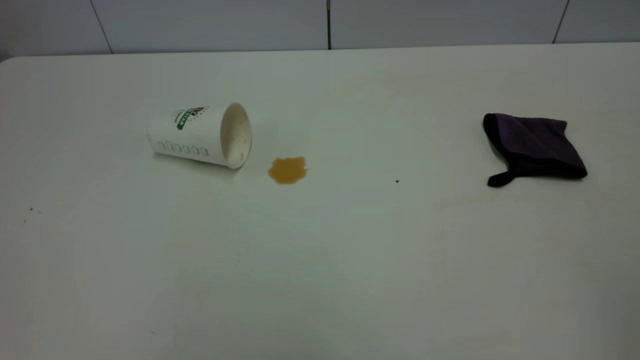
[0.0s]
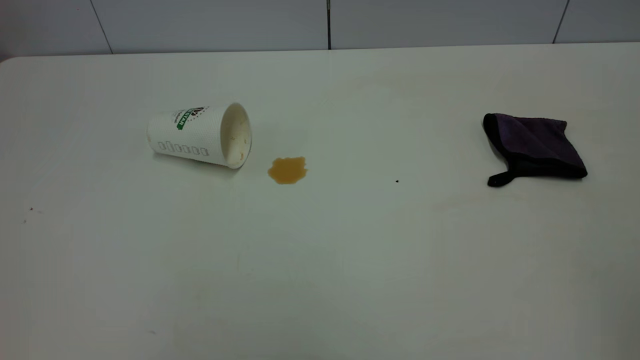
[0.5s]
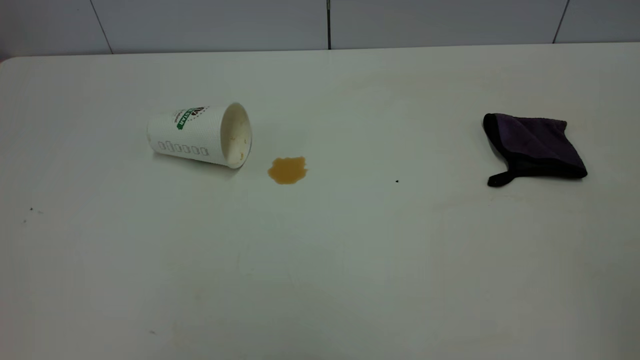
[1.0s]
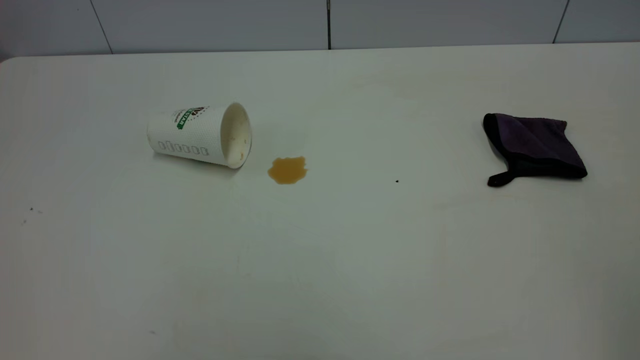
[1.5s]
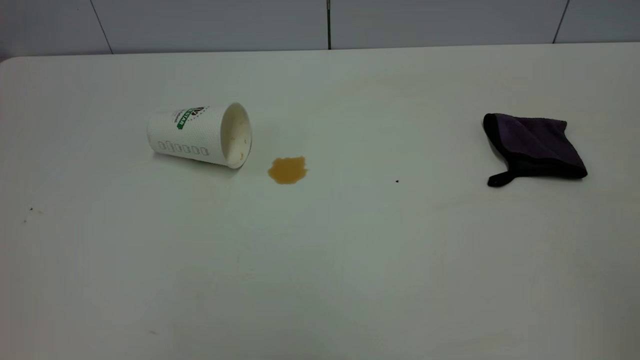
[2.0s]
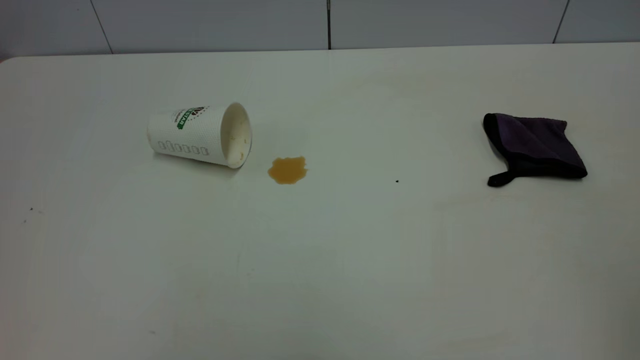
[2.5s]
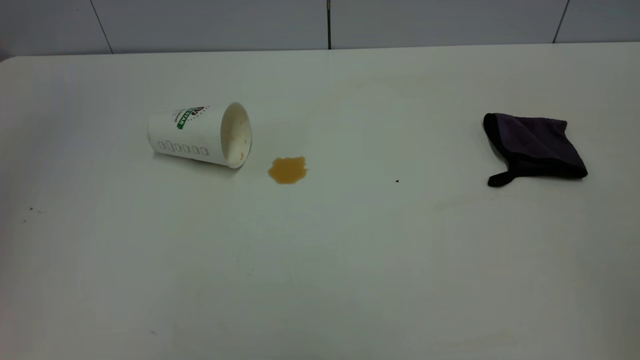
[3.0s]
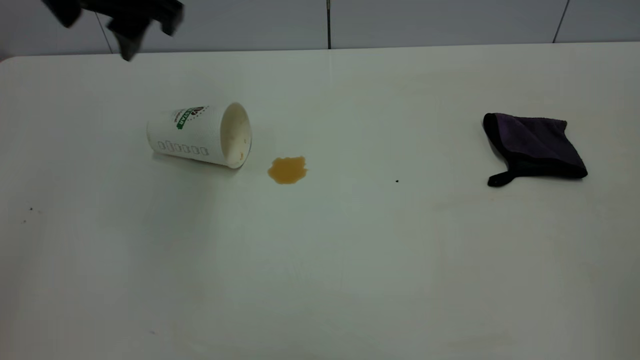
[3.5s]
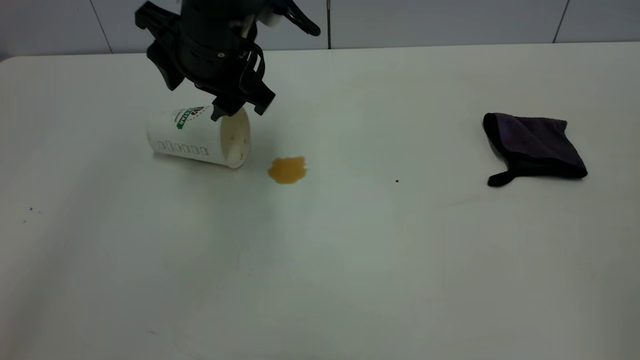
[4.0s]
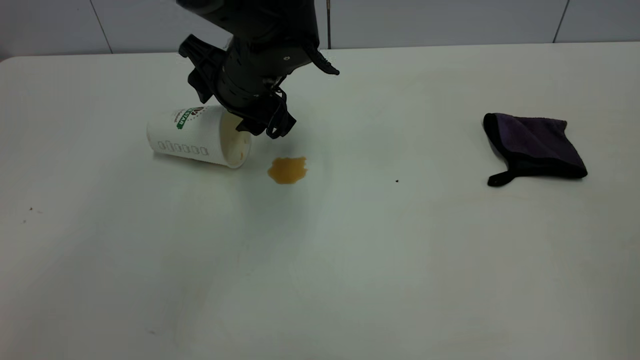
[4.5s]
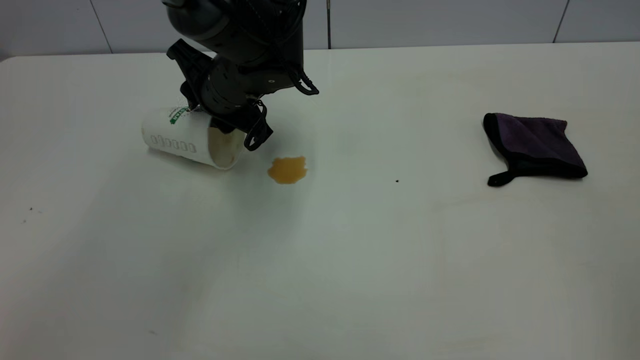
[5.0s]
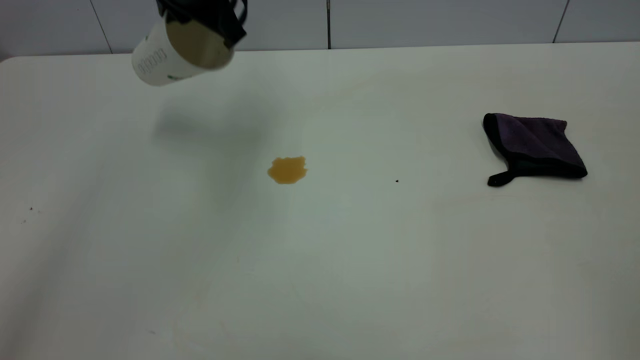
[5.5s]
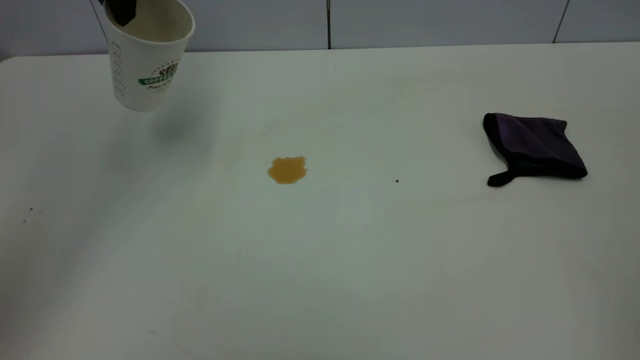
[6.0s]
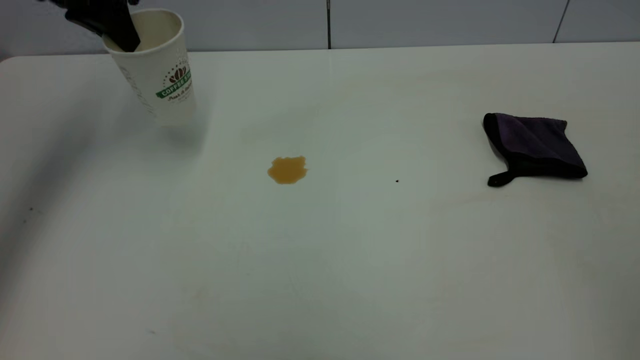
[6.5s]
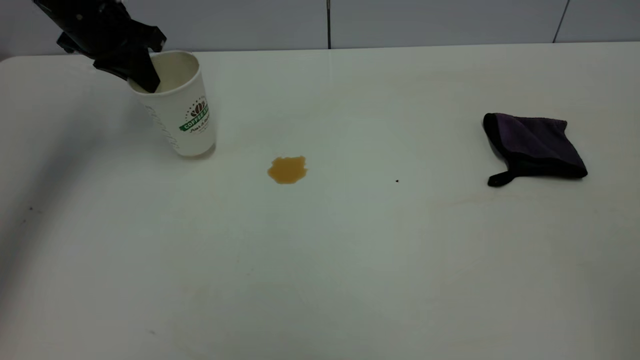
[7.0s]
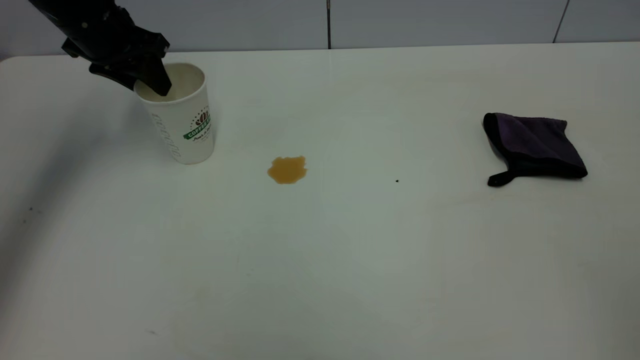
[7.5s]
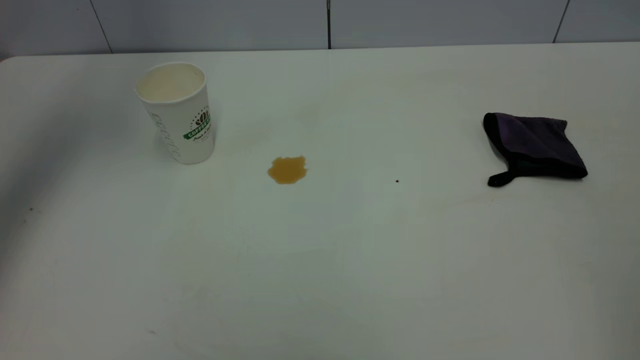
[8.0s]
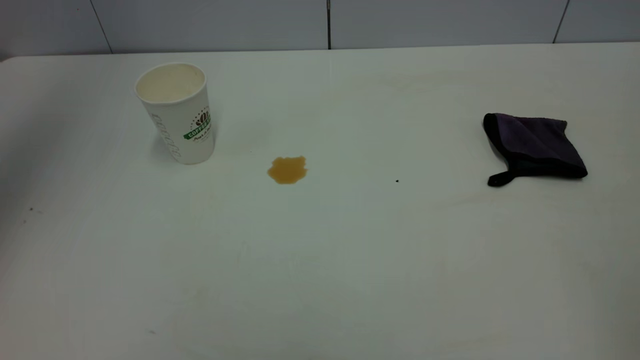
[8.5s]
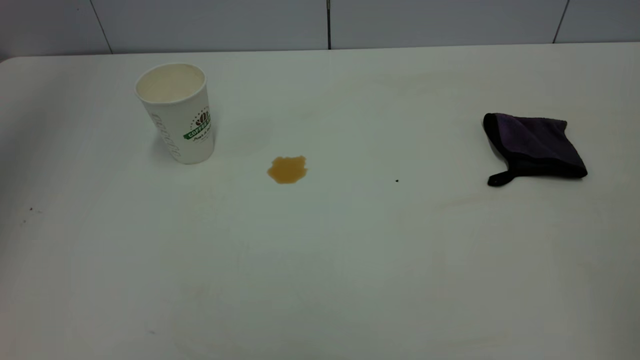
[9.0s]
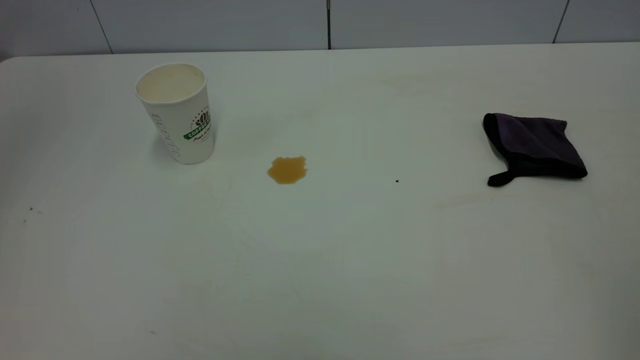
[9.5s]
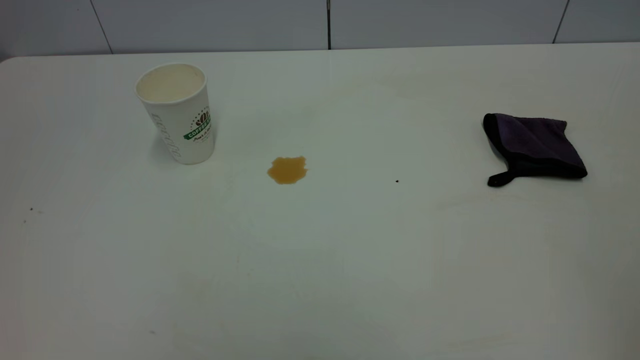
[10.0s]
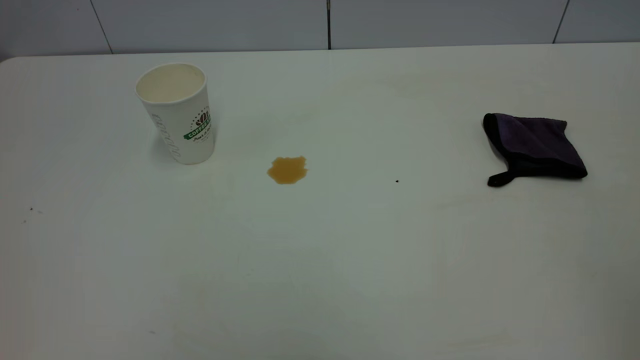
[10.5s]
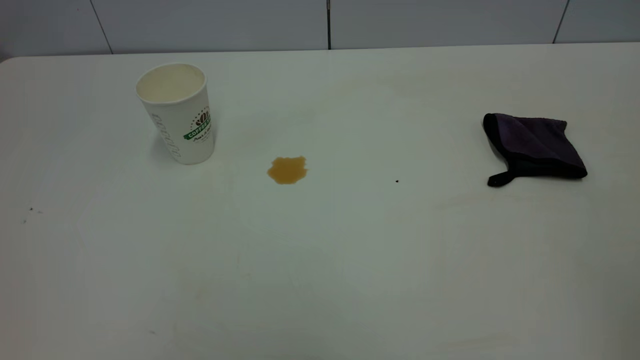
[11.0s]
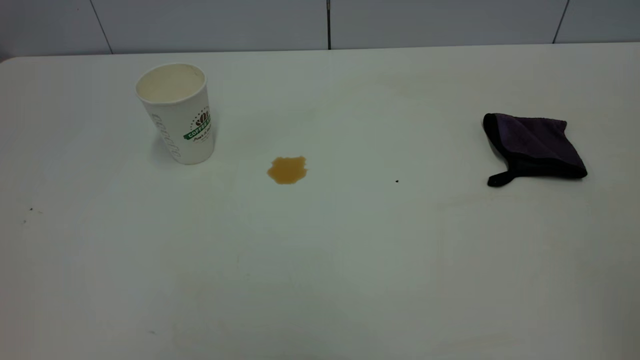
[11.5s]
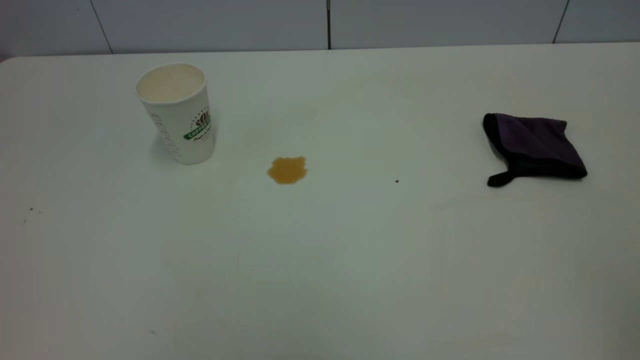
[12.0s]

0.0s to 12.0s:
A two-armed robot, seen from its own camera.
Task of the whole recording: the left gripper pick up the fallen cup and place it upright, the right gripper grasp the purple rag and wipe the tea stain on the table, the right gripper put the purple rag back in its original position.
Step, 0.0s to 7.5s: Stand the paper cup upright.
0.0s to 2.0s: Both grippers stay put.
2.0s to 4.0s: The left gripper moves forward, to the right and downward, approximately 50 cm.
4.0s to 6.0s: The left gripper shifts roughly 15 cm to the left, upward and forward, and closes up.
6.0s to 8.0s: The left gripper shifts some 10 cm upward and to the left, and opens its fingers.
8.0s to 10.0s: The left gripper travels backward by roughly 40 cm.

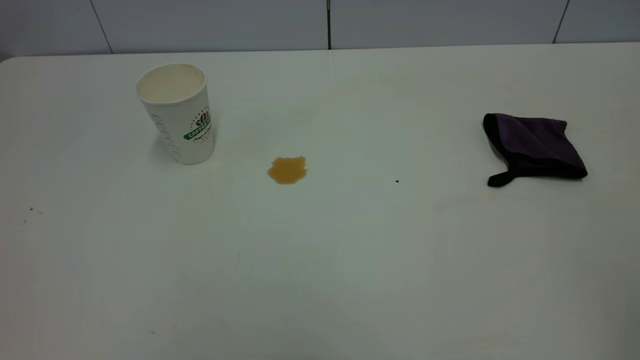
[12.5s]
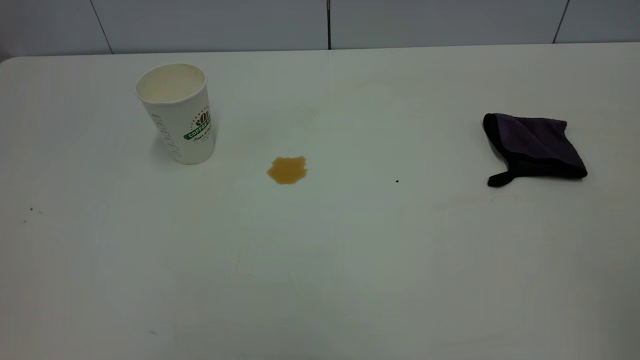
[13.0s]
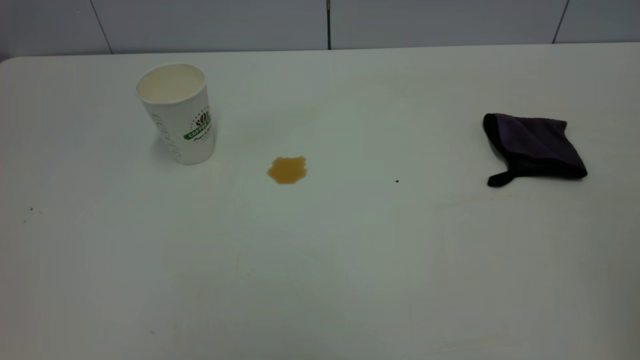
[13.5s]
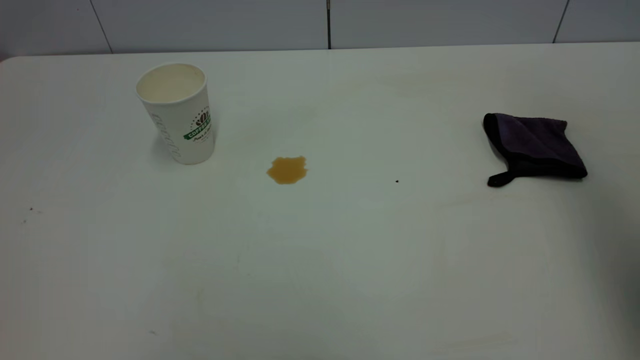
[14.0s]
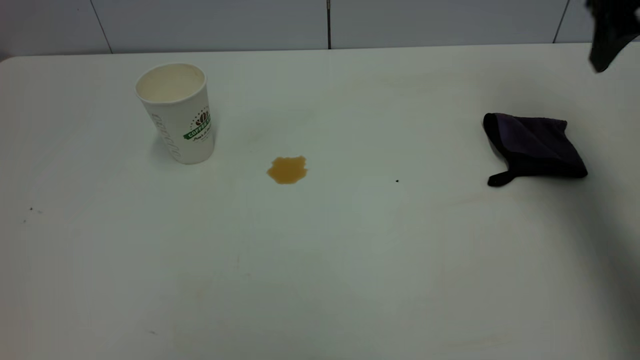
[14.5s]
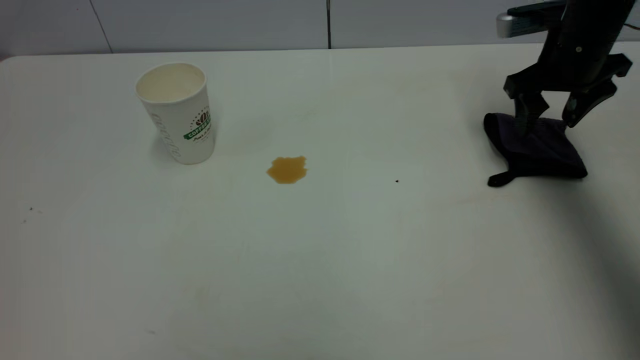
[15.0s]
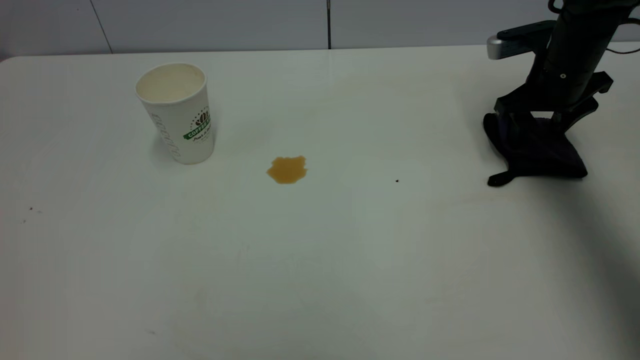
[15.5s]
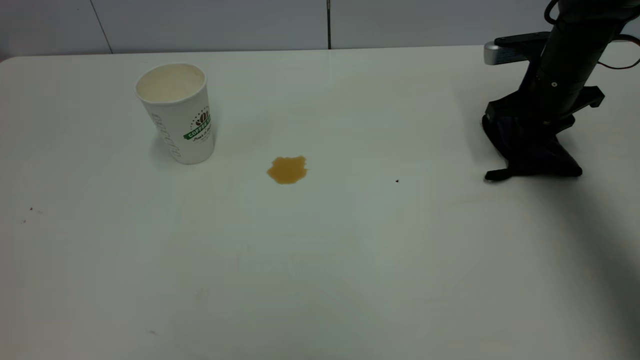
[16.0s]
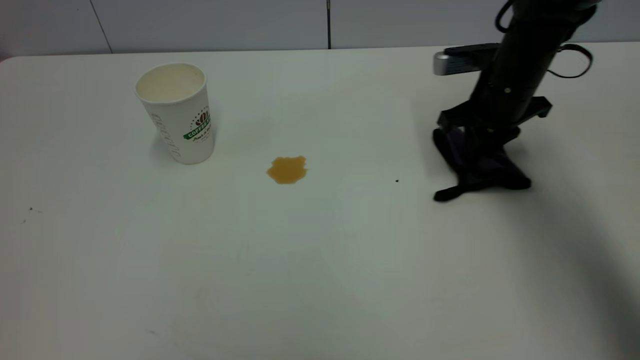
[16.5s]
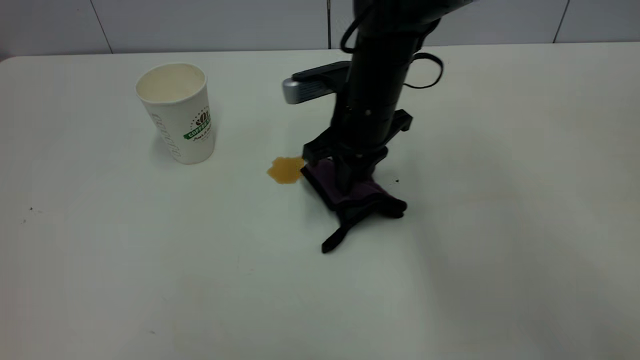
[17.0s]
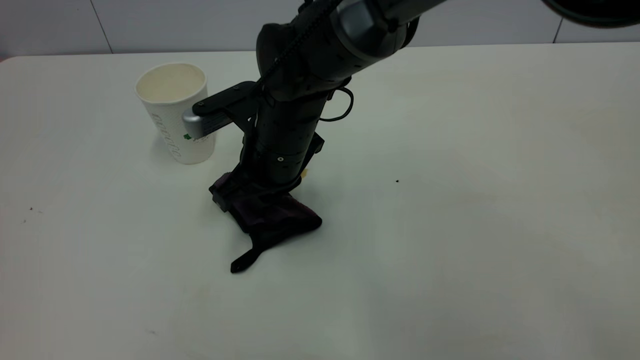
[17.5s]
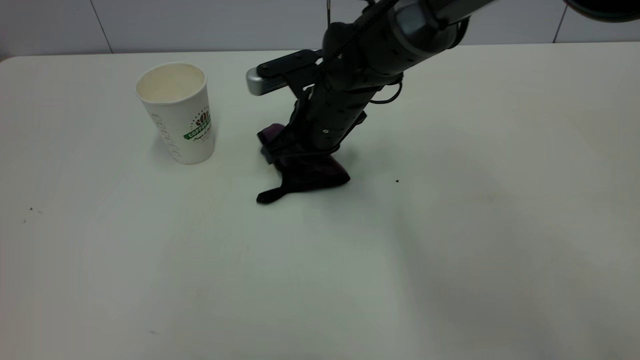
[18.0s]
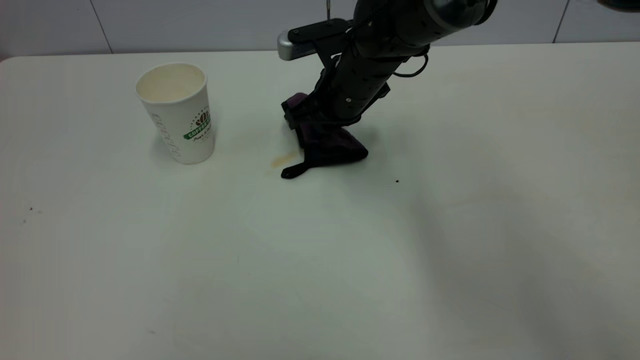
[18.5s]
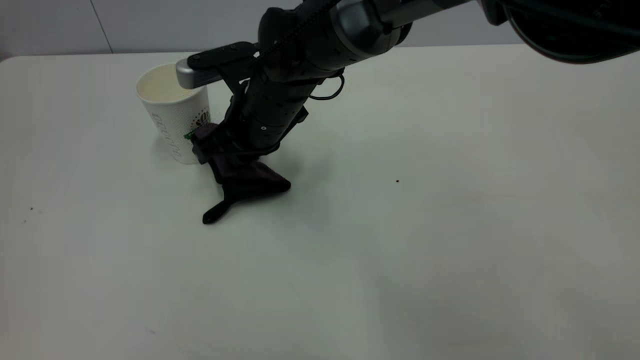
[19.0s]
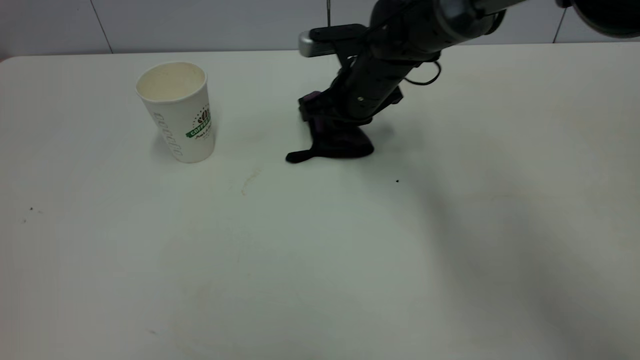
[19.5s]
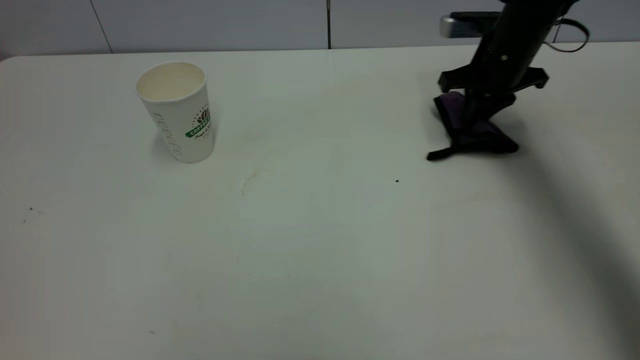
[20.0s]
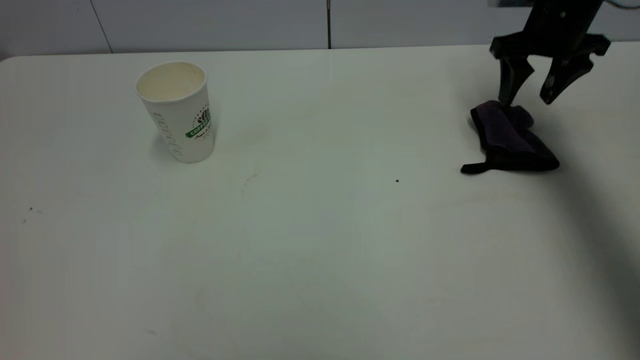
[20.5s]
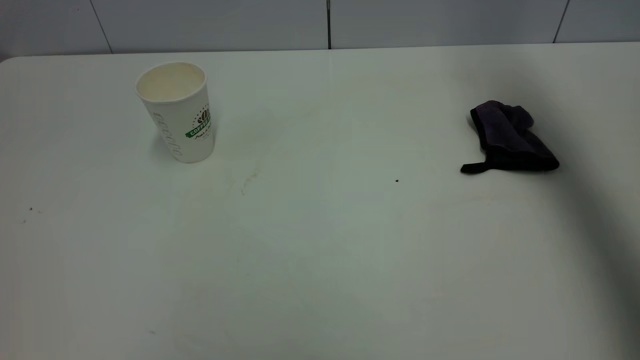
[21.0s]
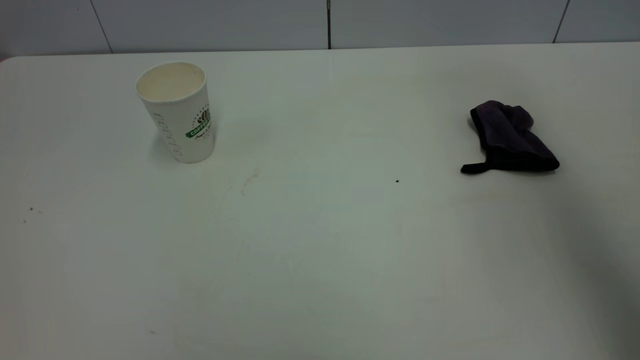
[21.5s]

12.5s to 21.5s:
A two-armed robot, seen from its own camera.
Task of the whole recording: the left gripper pick up the fallen cup and place it upright, the right gripper grasp the purple rag and wipe the tea stain on the table, the right gripper put the purple rag back in its original position.
Step, 12.5s to 20.5s: Wipe the stains off the table with a rag.
12.5s to 14.5s: The right gripper goes roughly 40 cm forward, and opens its fingers.
14.5s to 17.0s: The right gripper is displaced to the left and downward by about 30 cm, and closes up.
17.0s to 19.5s: The right gripper swings left and right, roughly 15 cm each way, with 3 reversals.
19.5s to 21.5s: The right gripper shifts roughly 50 cm upward, backward and to the right, and opens up.
